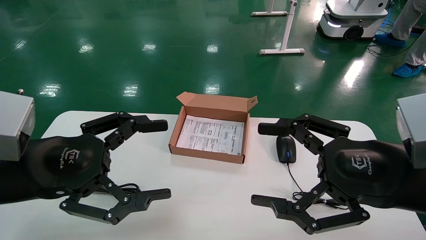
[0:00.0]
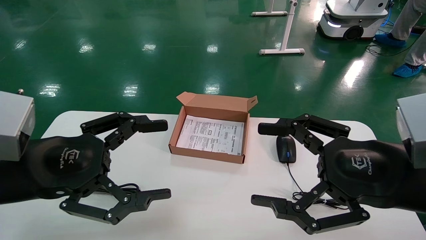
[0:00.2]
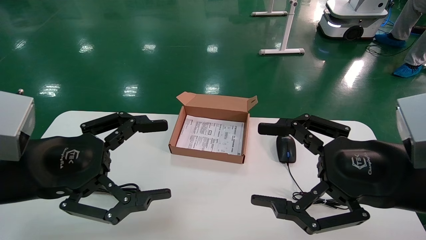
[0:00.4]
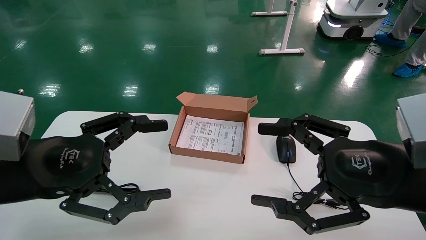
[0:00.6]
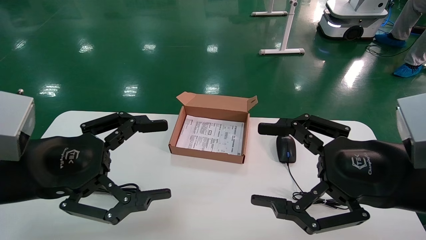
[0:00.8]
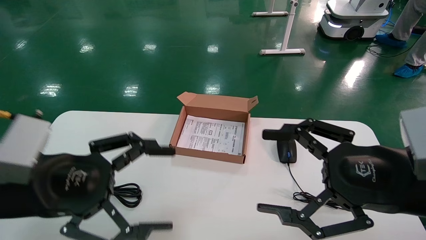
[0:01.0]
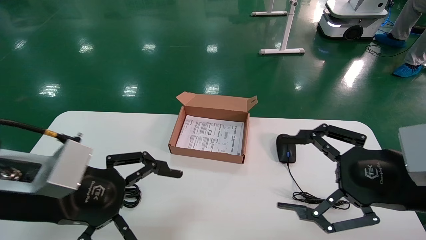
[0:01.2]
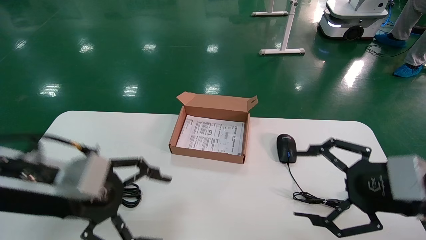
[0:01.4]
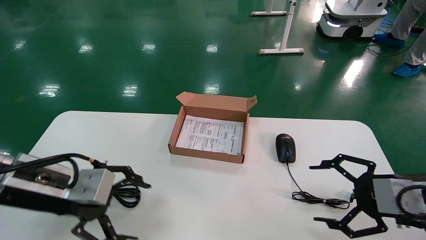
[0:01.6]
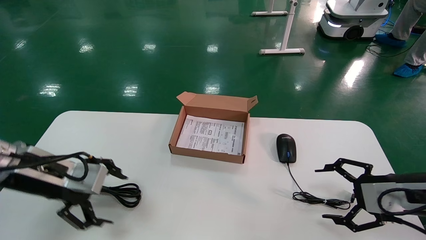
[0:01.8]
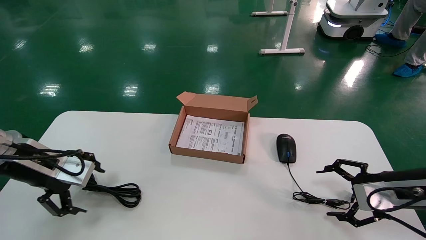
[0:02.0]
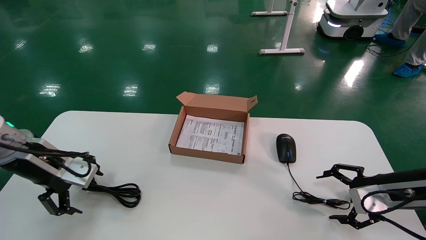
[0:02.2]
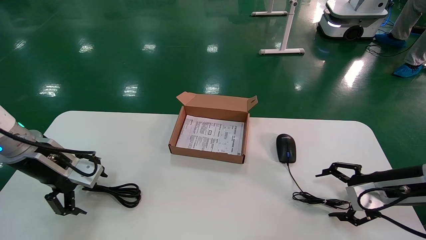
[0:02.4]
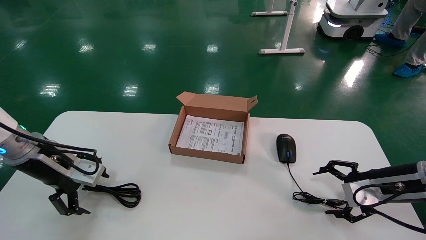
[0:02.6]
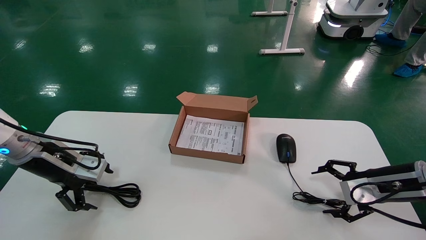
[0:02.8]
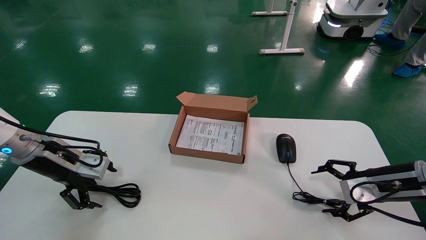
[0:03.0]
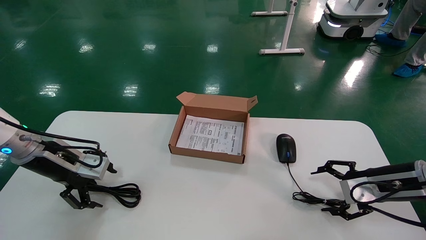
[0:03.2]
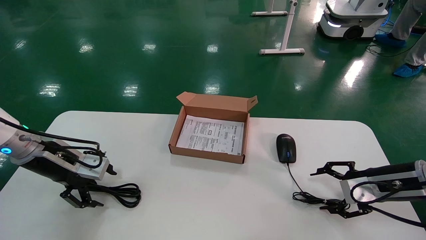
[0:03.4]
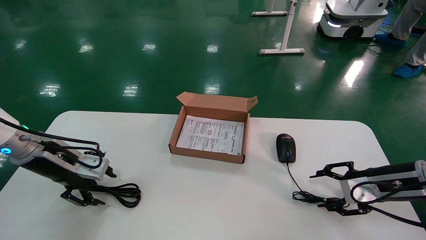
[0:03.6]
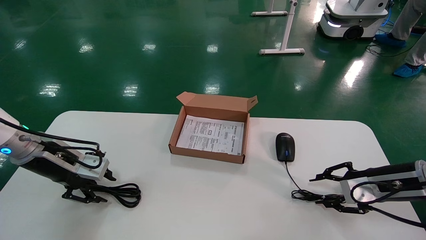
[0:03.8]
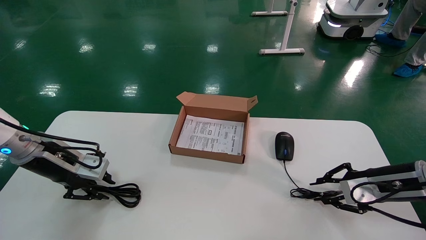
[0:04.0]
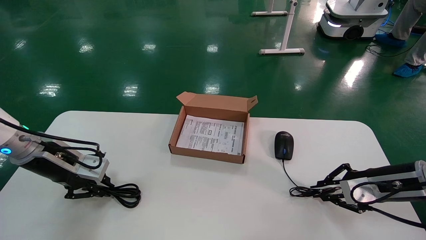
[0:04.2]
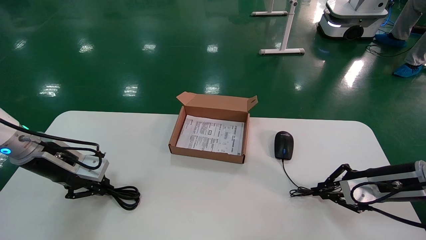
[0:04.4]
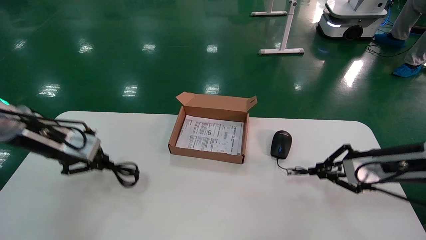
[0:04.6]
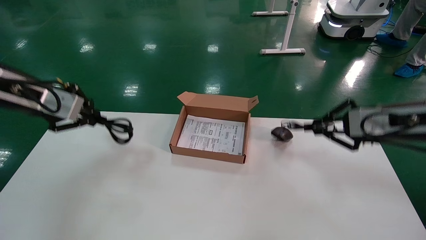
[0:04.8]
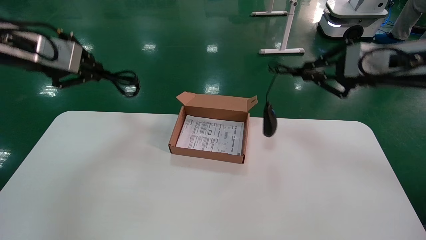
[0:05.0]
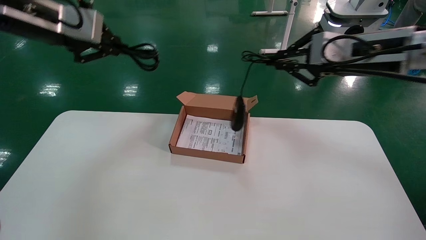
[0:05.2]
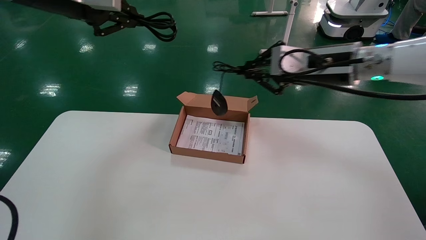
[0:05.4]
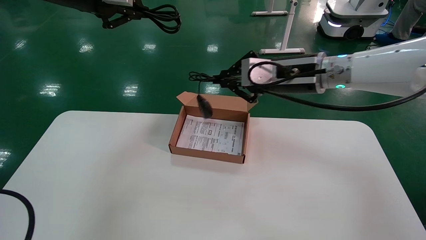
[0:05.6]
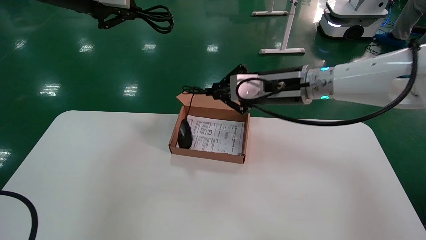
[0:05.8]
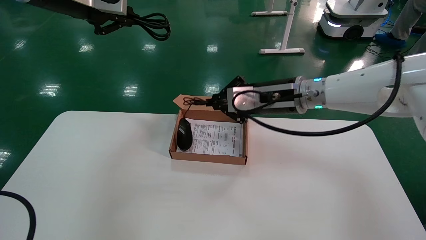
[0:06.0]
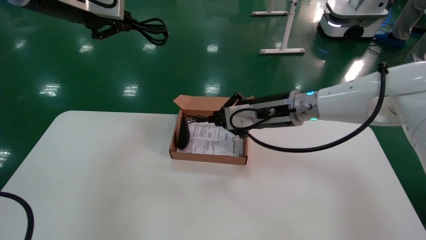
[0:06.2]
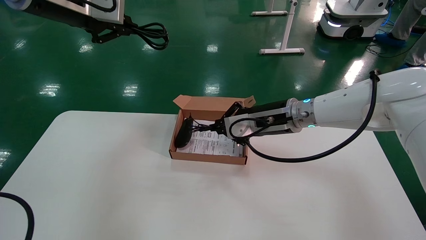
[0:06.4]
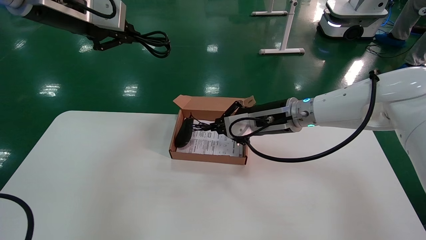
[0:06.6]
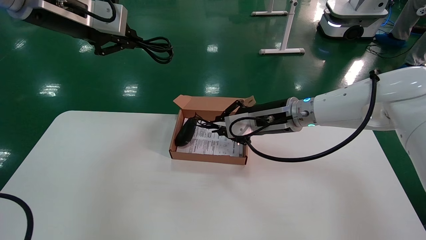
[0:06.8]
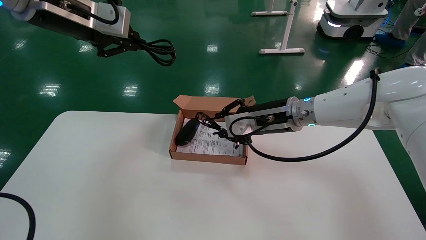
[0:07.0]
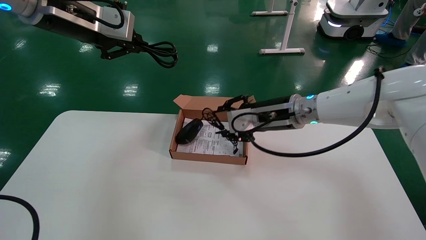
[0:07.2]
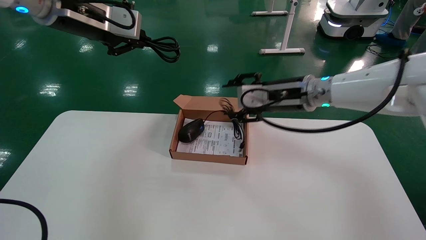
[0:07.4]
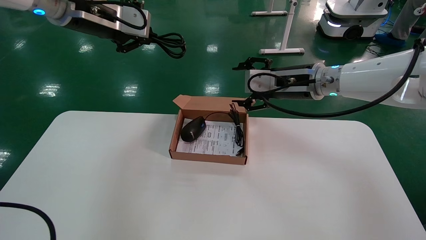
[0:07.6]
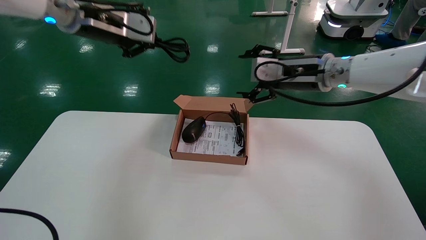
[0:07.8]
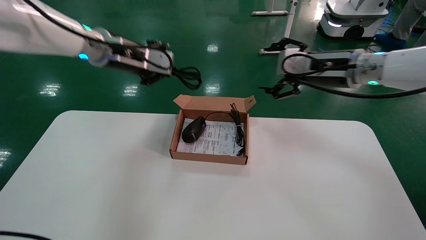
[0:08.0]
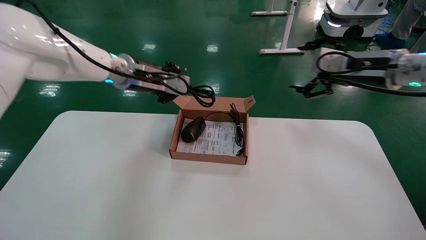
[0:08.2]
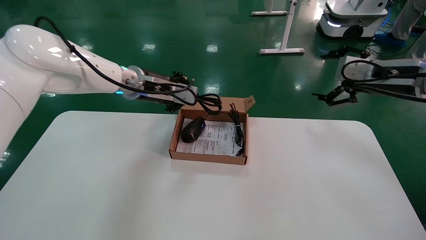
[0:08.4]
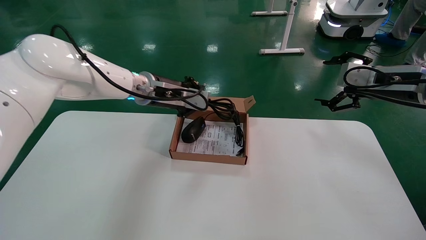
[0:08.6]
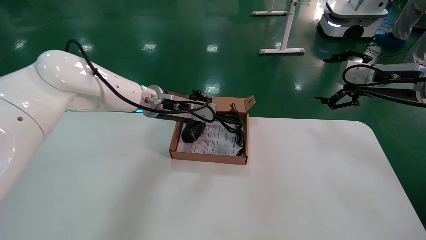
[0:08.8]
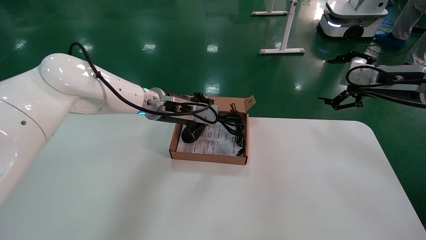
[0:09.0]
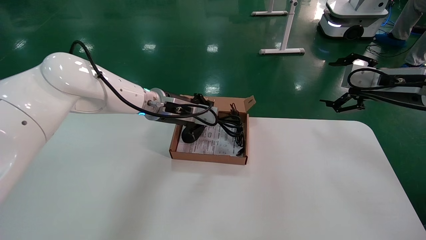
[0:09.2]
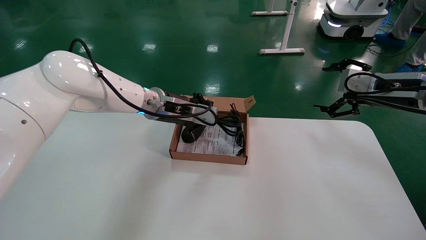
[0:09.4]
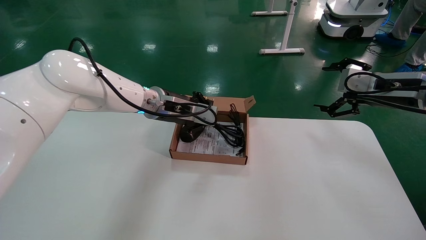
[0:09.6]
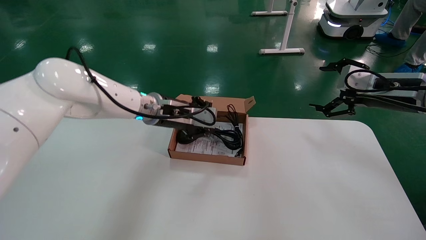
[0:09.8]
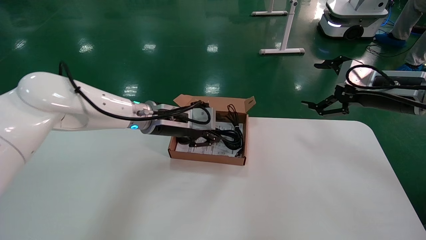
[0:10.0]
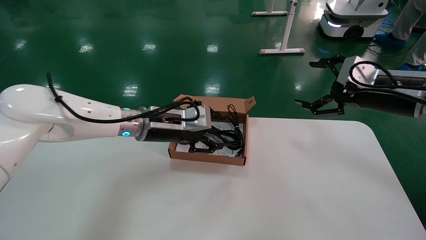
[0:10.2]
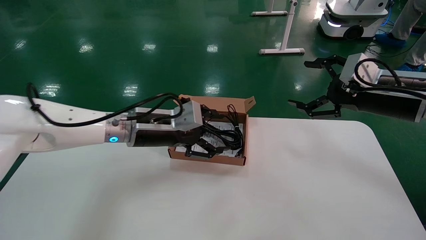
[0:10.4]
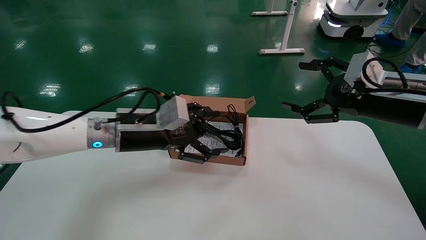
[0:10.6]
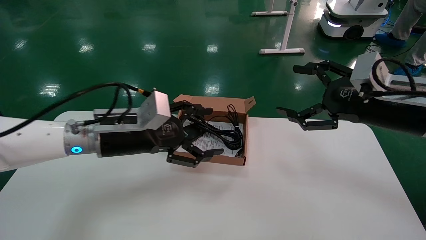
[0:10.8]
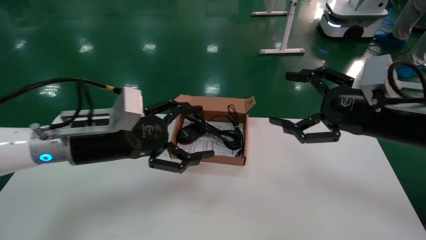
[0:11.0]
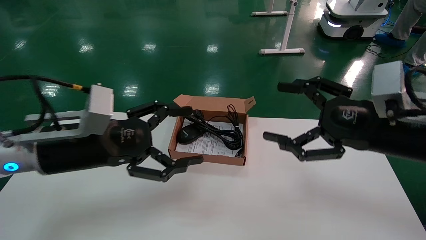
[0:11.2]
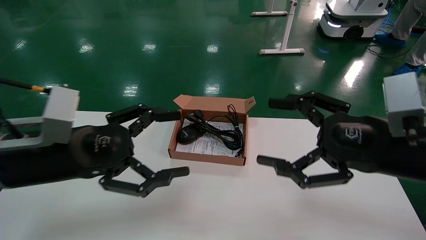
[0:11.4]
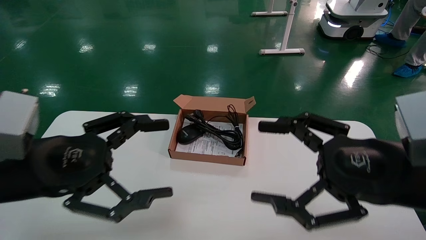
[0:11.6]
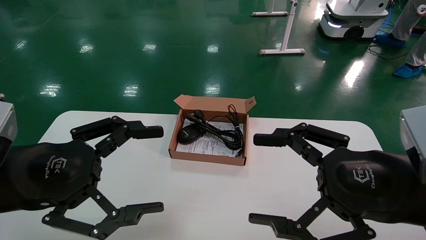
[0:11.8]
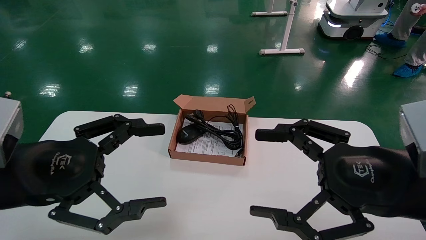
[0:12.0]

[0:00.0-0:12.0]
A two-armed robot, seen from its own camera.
Step, 0:01.0 to 0:04.4: Grab and lift both the mouse and power cord from the accessory packaging area at the same time.
Step, 0:04.6 to 0:09.6: Place the mouse and power cord into the box.
0:00.0 to 0:01.6: The left gripper travels forward by roughly 5 cm, while the right gripper moves to the right, downward and forward, approximately 15 cm.
0:01.6 to 0:03.0: The left gripper travels forward and to the left by approximately 10 cm. The right gripper moves forward, some 10 cm.
0:03.0 to 0:04.4: The left gripper closes its fingers, while the right gripper closes up.
0:04.4 to 0:06.0: The right gripper travels to the left and upward by roughly 25 cm. Meanwhile the left gripper travels upward by about 25 cm.
0:06.0 to 0:07.6: The right gripper opens up. The left gripper changes place by roughly 5 cm.
0:07.6 to 0:09.0: The left gripper heads downward and to the right, covering about 20 cm. The right gripper heads to the right, covering about 20 cm.
0:09.0 to 0:10.4: The left gripper moves backward, some 5 cm, and opens, while the right gripper shifts by approximately 5 cm.
0:10.4 to 0:12.0: The two grippers go about 20 cm backward and to the left. The left gripper opens.

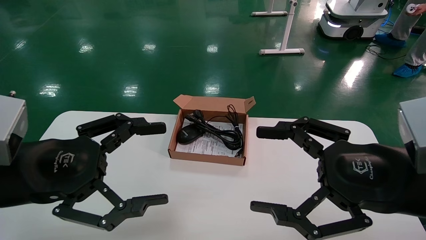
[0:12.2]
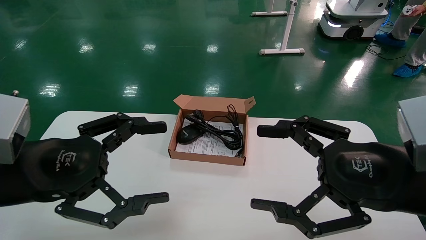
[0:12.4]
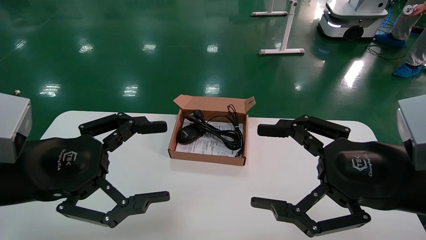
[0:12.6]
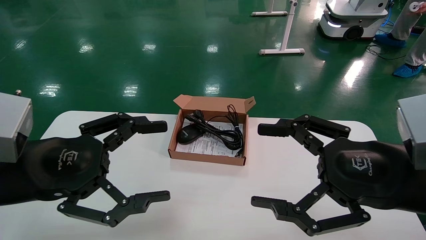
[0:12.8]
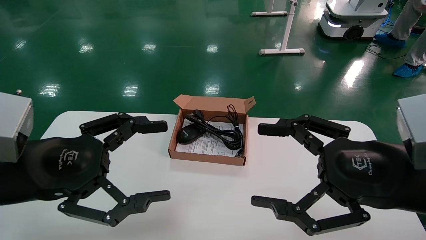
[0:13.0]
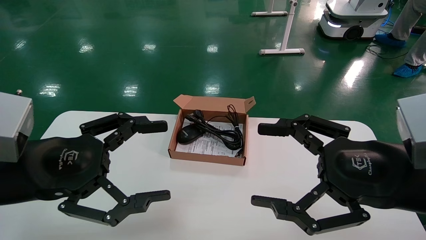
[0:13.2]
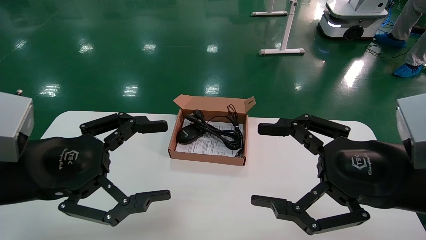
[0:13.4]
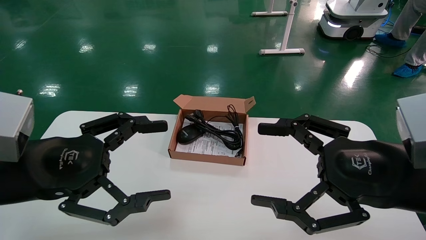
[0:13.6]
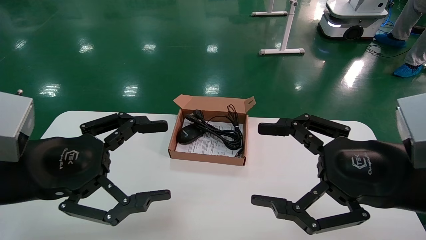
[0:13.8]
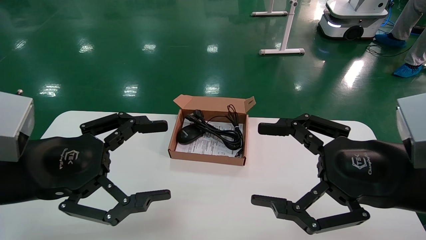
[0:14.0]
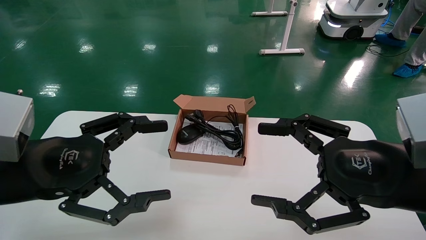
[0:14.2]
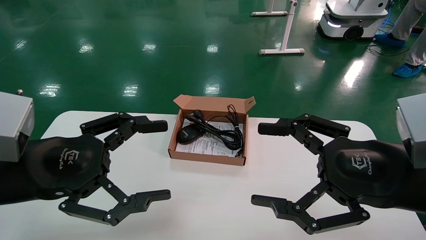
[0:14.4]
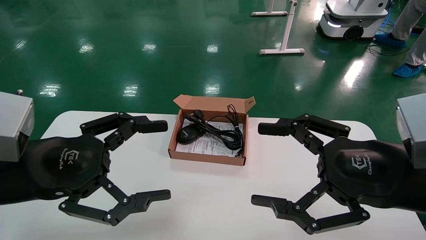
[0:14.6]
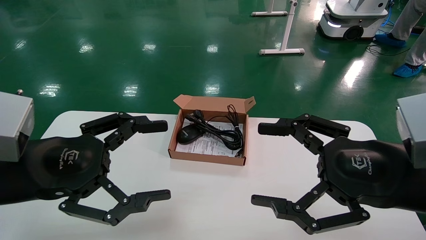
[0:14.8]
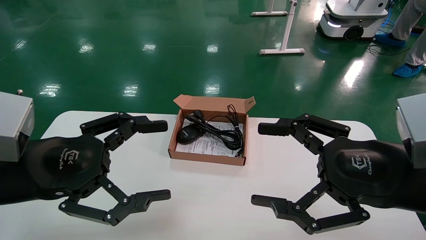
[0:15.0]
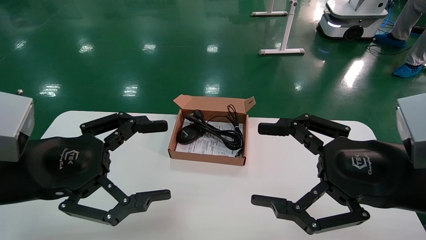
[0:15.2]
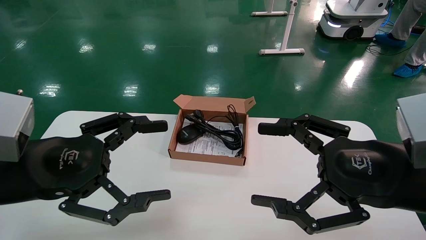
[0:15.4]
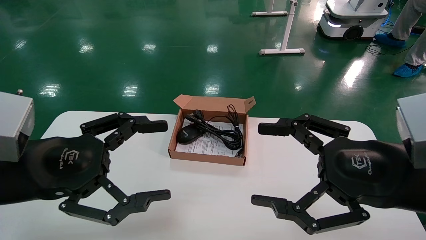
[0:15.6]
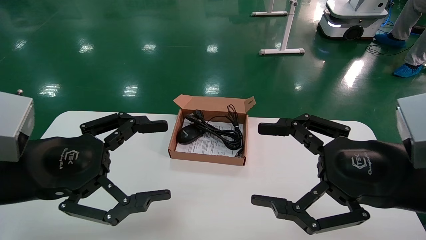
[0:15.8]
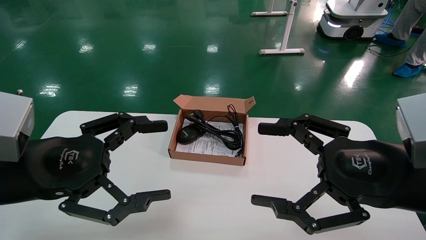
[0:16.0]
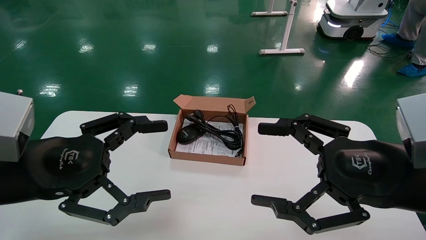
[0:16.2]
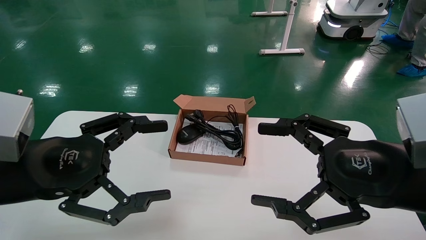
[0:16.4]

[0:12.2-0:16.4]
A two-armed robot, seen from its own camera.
0:12.2 to 0:16.4: Both grippers stay about where they are.
